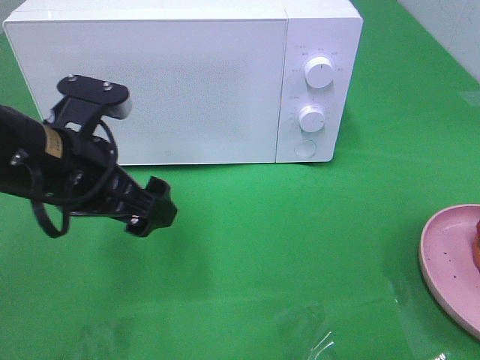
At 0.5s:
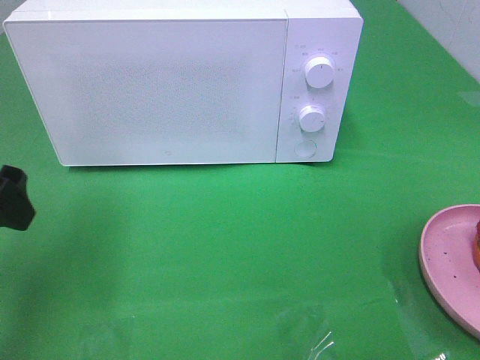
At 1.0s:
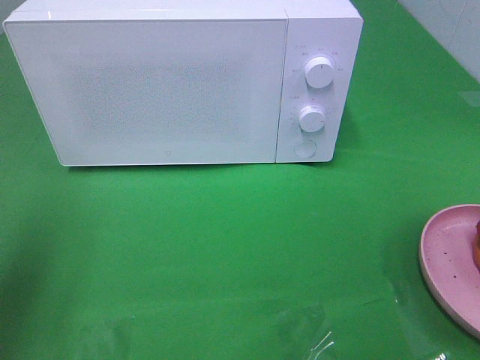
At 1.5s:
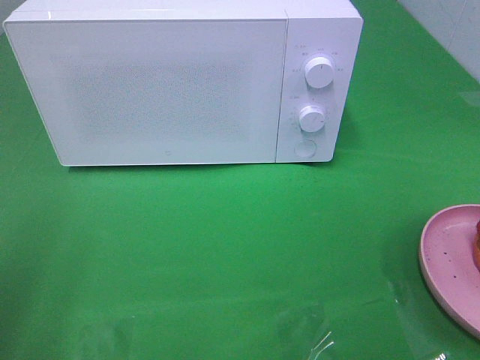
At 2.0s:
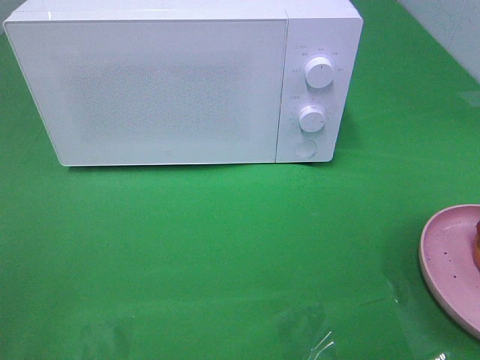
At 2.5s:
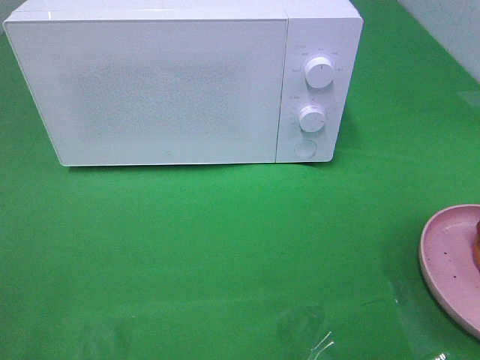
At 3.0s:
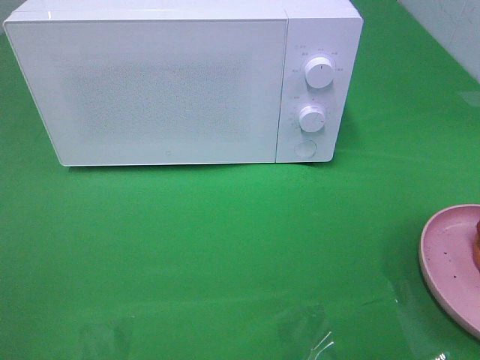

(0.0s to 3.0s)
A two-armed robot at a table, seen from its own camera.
Task of the whole recording: Heat the burger.
0.0s - 1.5s: The left gripper travels to the left, backward and upward by about 20 cm.

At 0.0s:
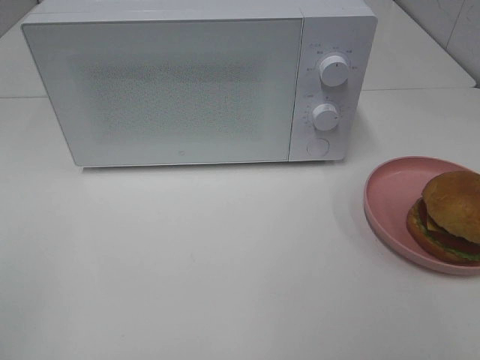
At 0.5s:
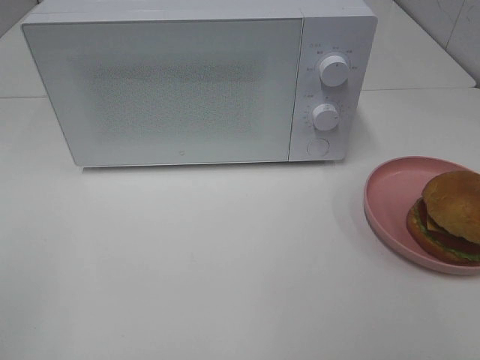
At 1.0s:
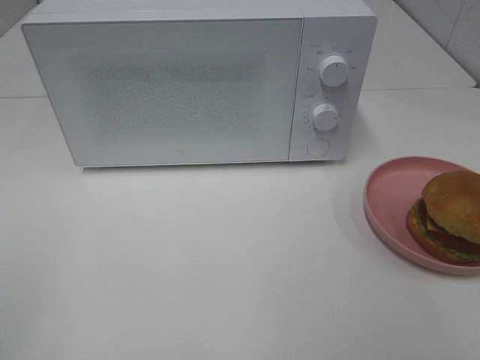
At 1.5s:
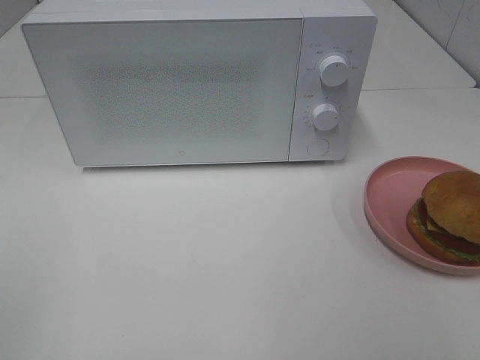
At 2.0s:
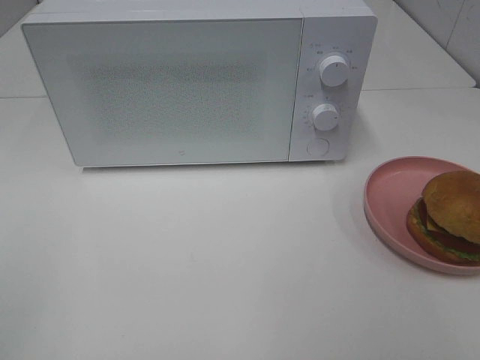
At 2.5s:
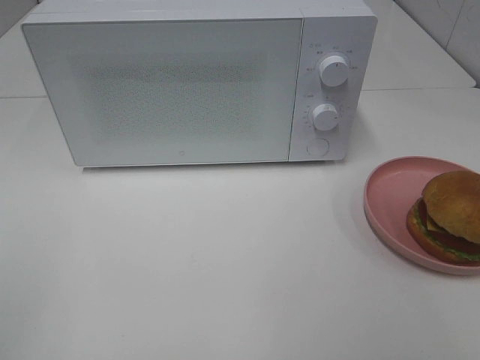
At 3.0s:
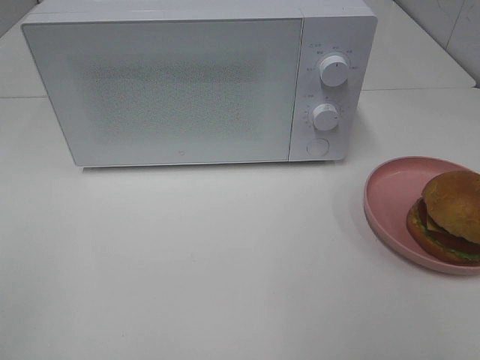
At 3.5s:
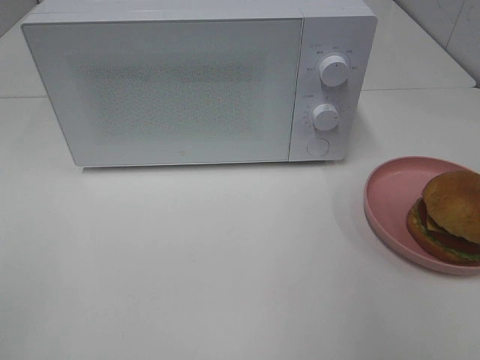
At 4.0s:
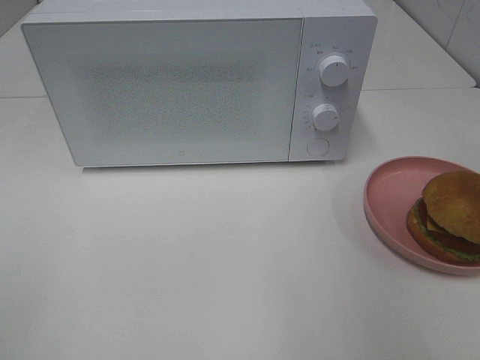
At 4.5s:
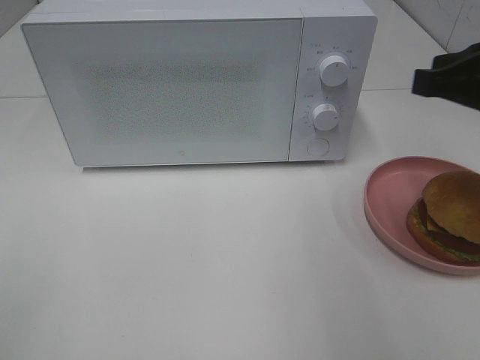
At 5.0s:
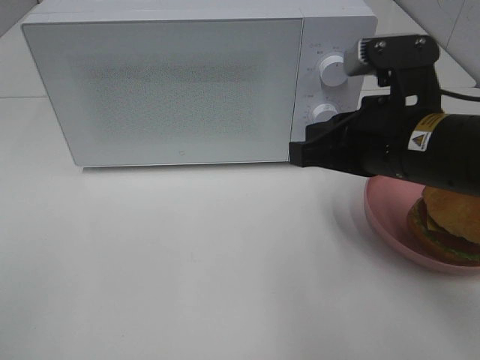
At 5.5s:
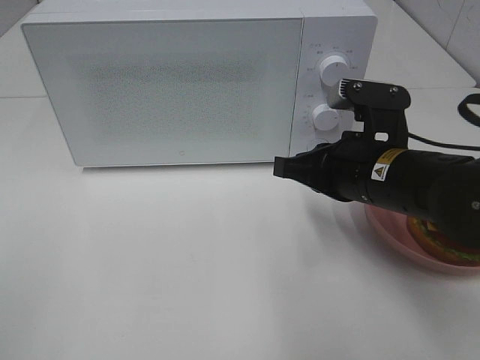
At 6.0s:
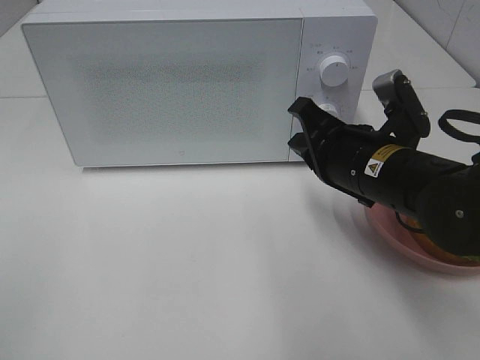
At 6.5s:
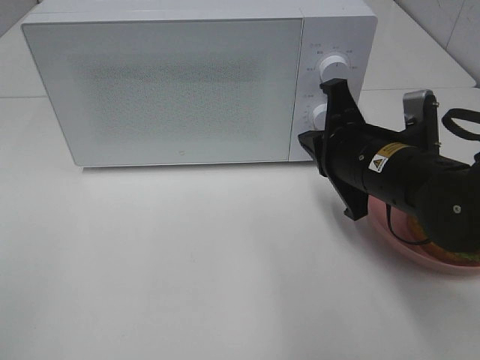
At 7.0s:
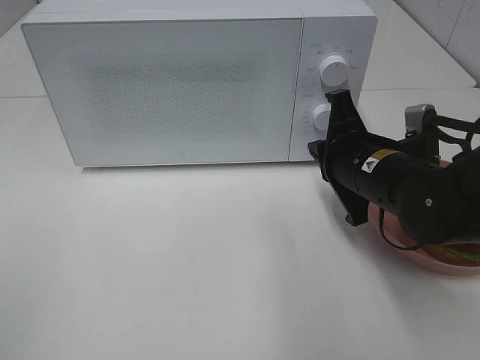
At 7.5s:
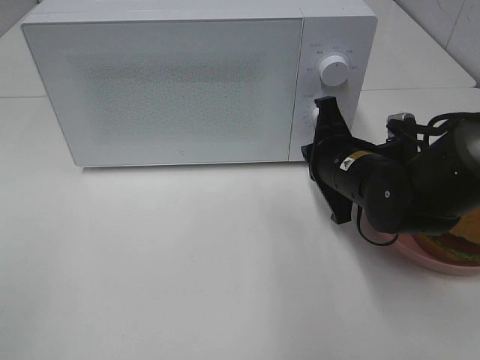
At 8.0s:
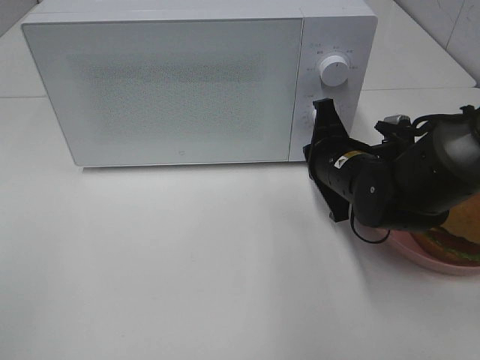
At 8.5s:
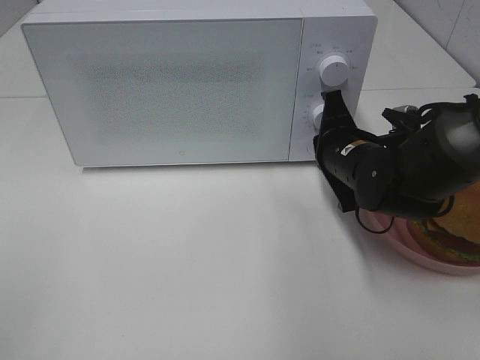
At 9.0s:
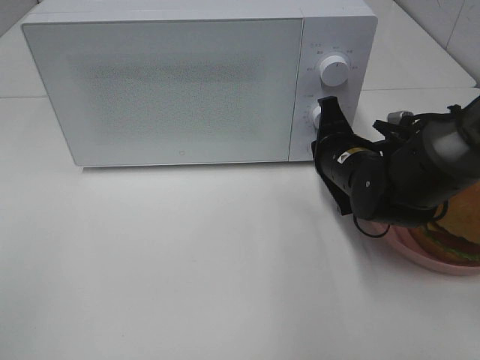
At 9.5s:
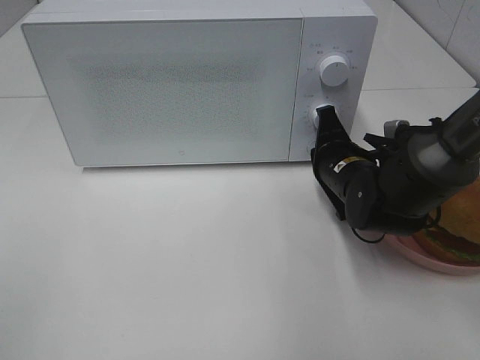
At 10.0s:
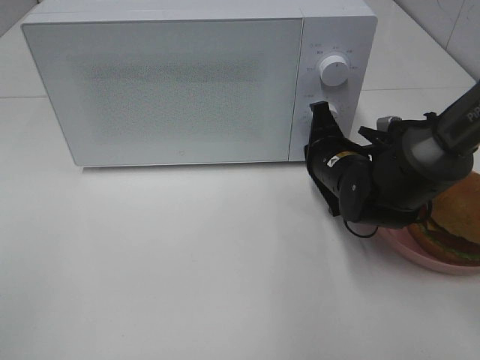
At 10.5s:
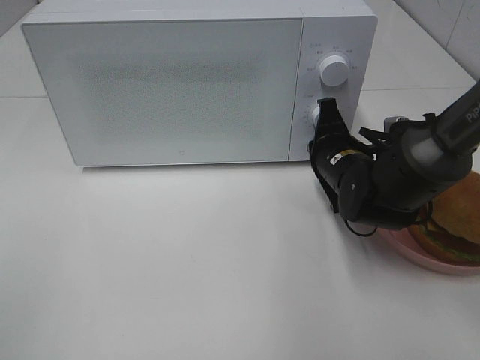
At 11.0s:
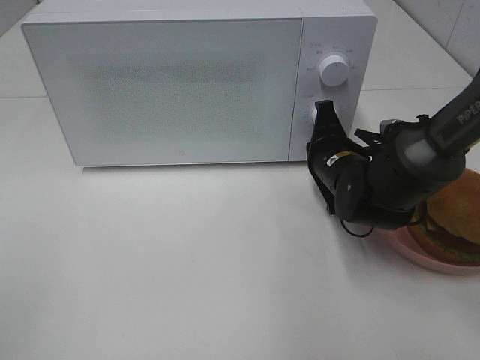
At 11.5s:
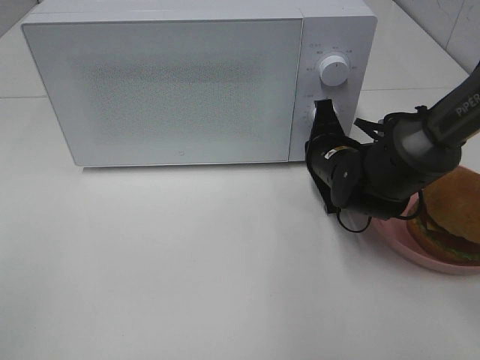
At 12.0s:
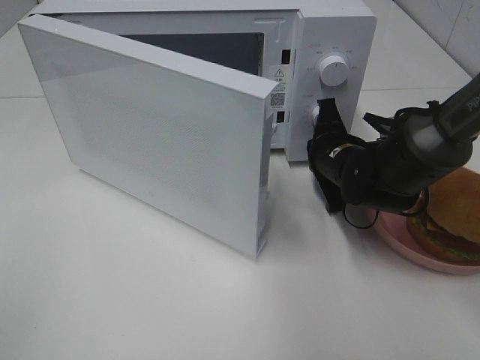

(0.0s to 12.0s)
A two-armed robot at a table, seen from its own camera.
Task of the whole recording: Heat the burger.
0.0s - 2.0s: Both grippers stay about where they are.
4.0s - 6.0s: The right gripper travels to the left and downward by some 20 cm.
6.0s - 8.0s: The right gripper goes approximately 5 cm forward and downward.
8.0s - 12.0s: There are only small adjustments of the grippers.

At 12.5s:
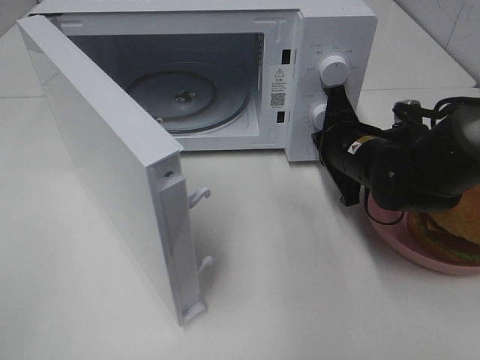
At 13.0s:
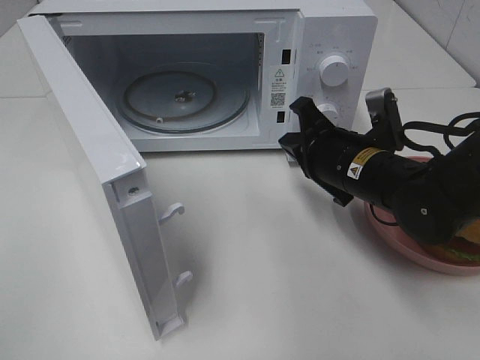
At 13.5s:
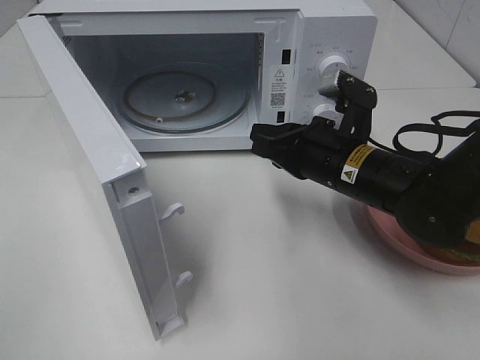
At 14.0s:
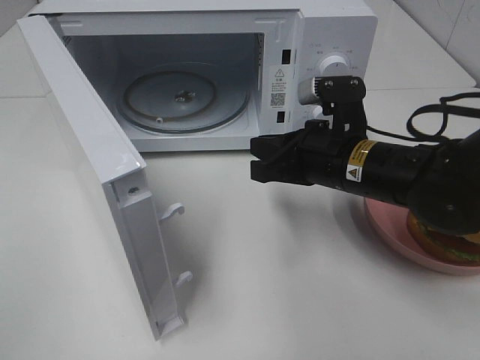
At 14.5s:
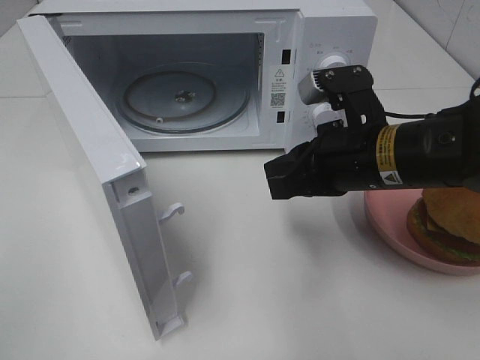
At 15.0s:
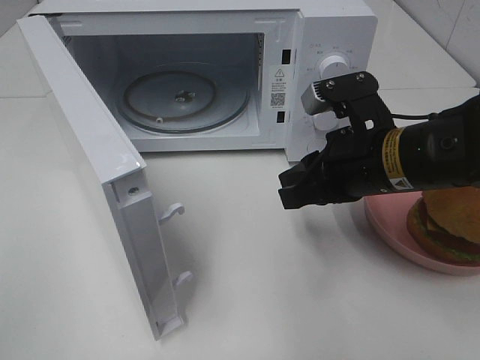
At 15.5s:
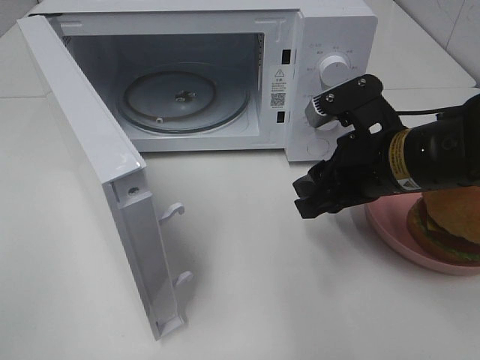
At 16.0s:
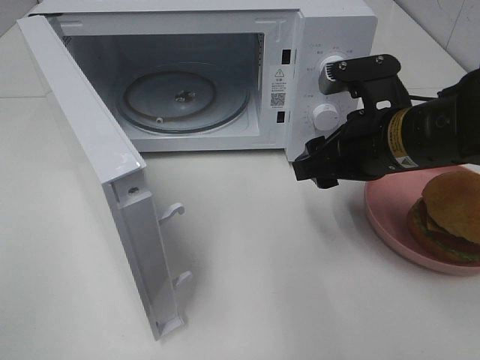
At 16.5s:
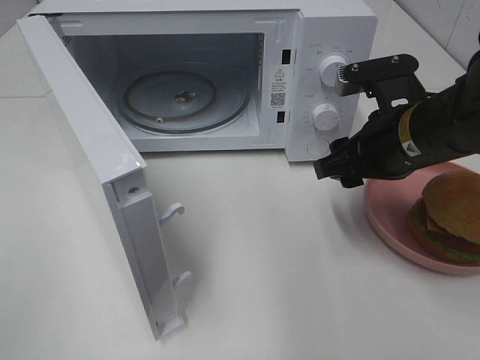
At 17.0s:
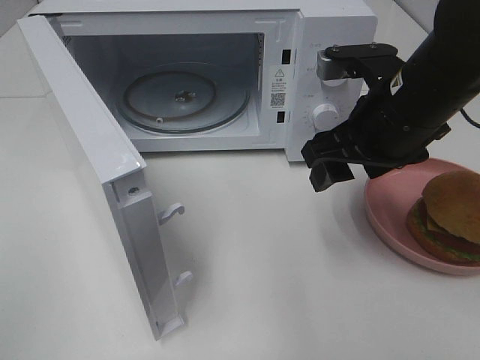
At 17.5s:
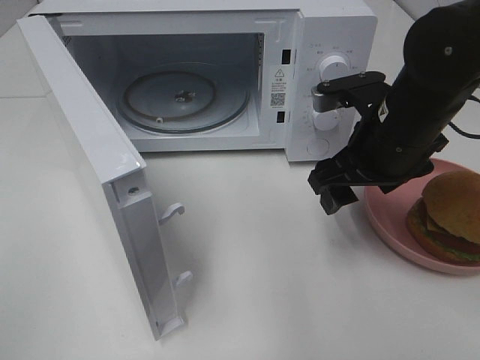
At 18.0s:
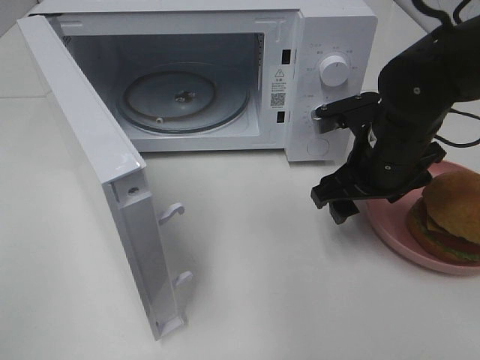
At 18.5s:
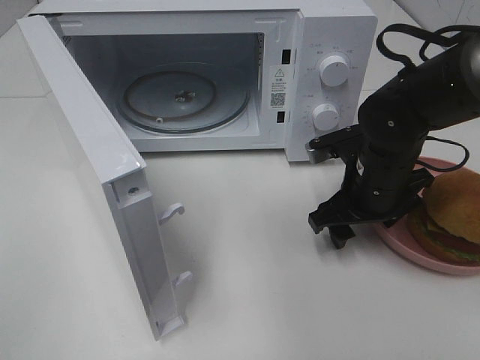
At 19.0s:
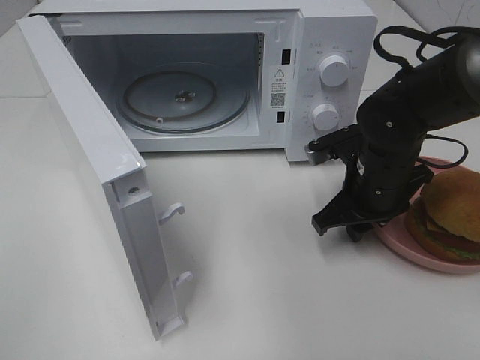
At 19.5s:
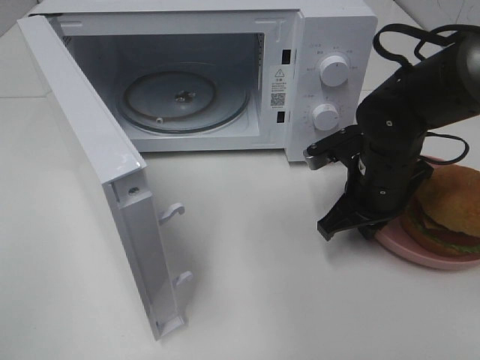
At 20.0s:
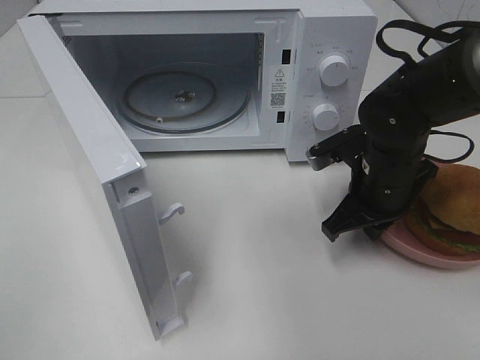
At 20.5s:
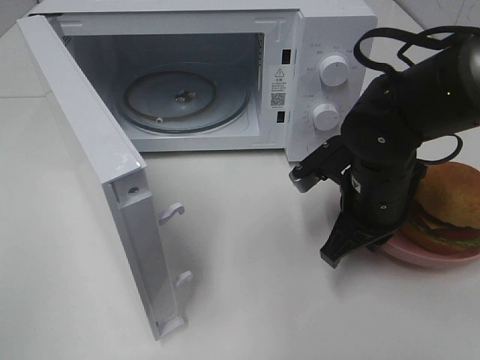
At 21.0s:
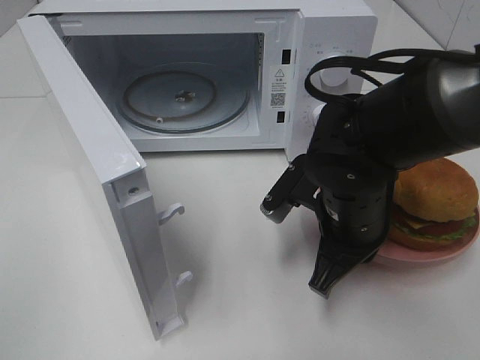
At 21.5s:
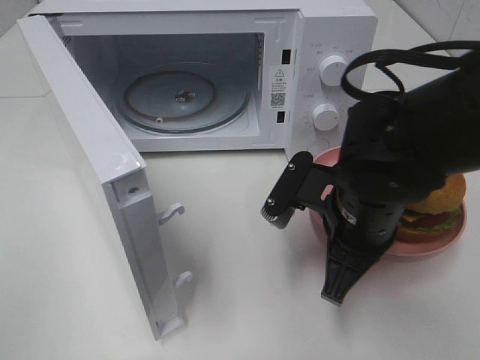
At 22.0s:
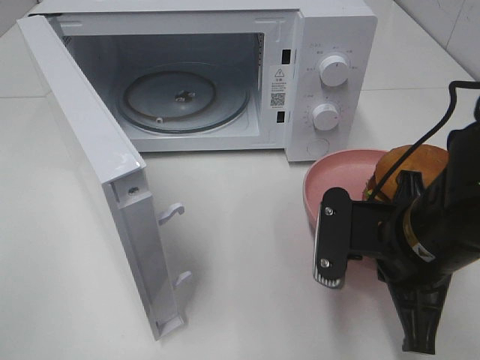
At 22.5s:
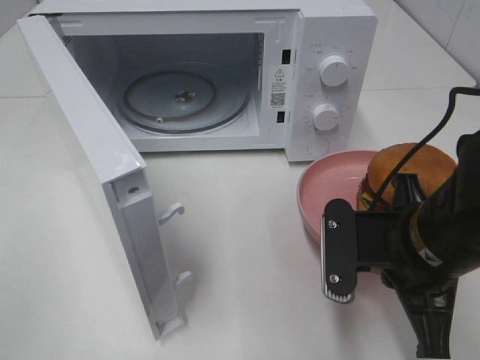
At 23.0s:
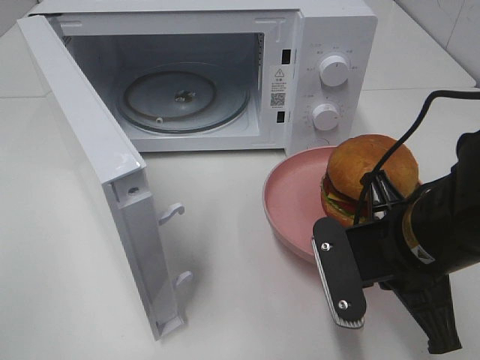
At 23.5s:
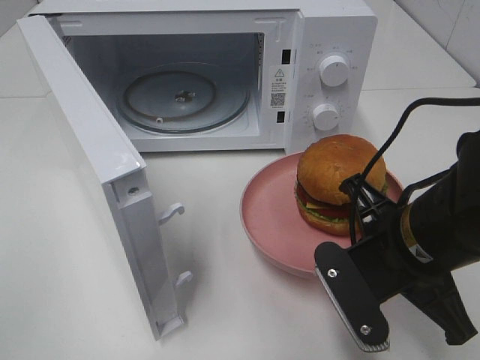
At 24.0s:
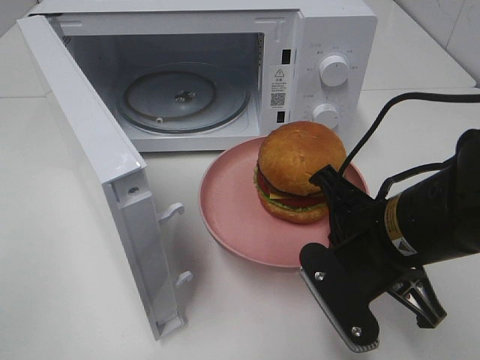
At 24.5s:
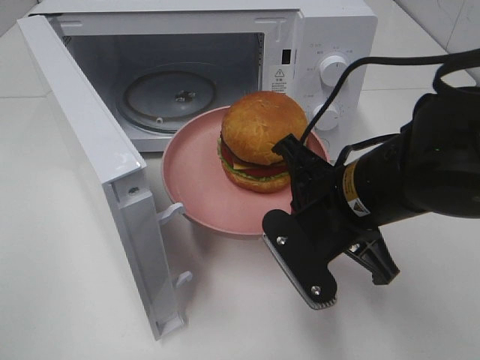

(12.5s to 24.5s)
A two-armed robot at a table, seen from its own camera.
Task of the whole recording: Heat the burger.
Step, 12.5s - 19.0s: Right hand: grab the plate with the hamburger.
12.5s - 14.5s: The right gripper goes about 10 cm backward and upward.
14.5s - 16.5s: The right gripper opens.
16.5s - 18.5s: The right gripper goes roughly 5 cm downward.
18.5s - 20.5s: The right gripper closes up.
20.5s - 22.5s: The right gripper moves backward, some 10 cm.
22.5s - 24.5s: The right gripper is displaced to the left by about 5 cm.
